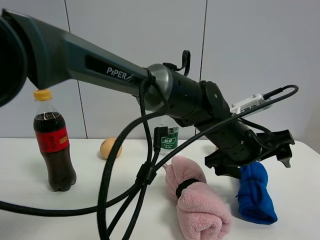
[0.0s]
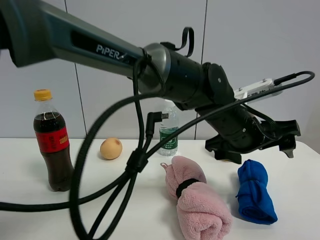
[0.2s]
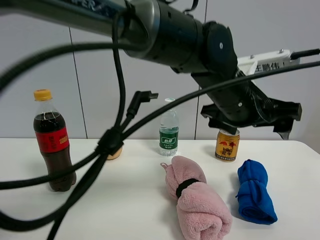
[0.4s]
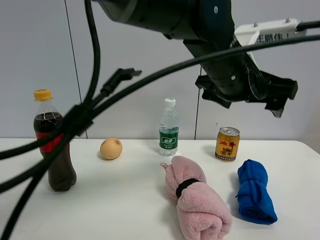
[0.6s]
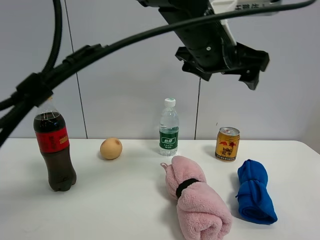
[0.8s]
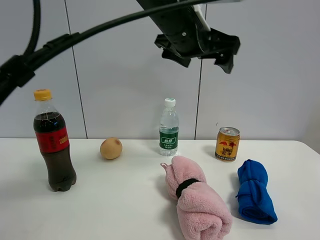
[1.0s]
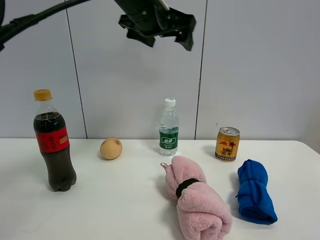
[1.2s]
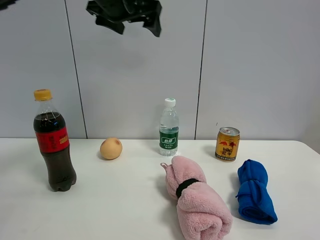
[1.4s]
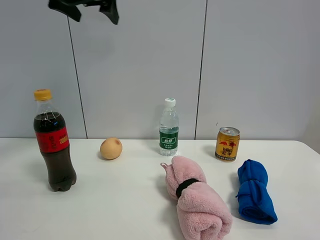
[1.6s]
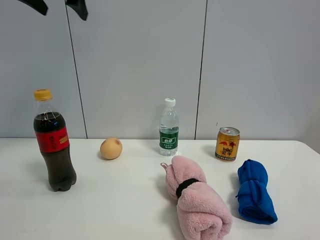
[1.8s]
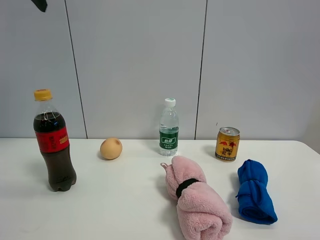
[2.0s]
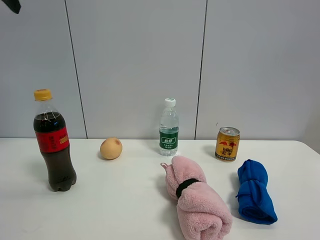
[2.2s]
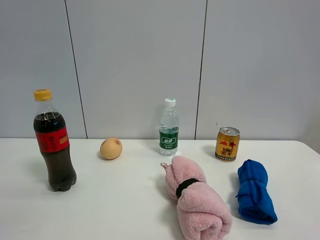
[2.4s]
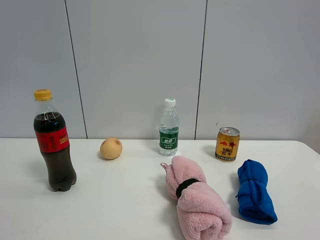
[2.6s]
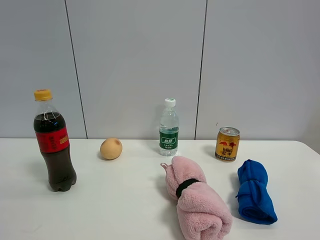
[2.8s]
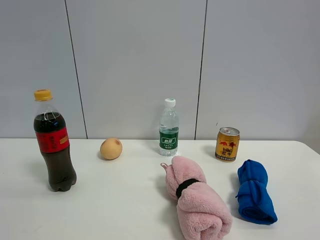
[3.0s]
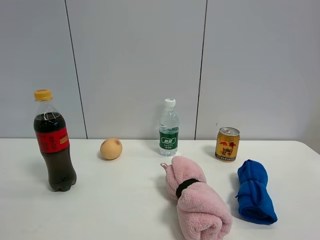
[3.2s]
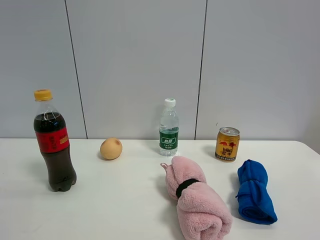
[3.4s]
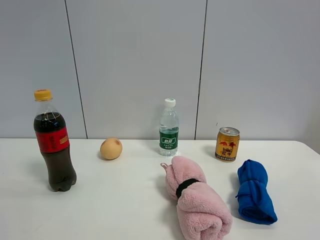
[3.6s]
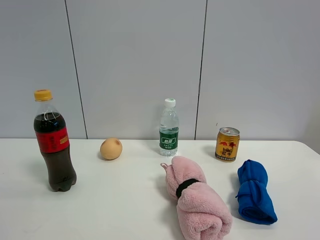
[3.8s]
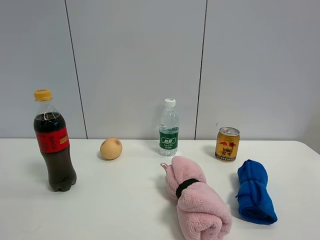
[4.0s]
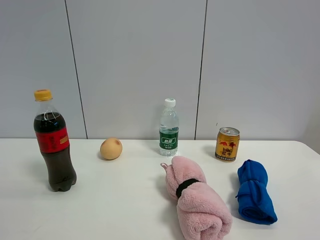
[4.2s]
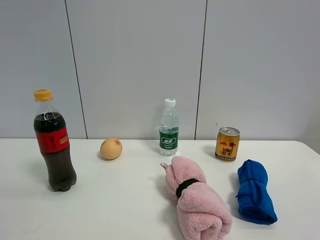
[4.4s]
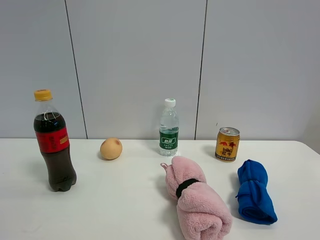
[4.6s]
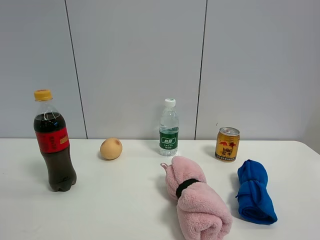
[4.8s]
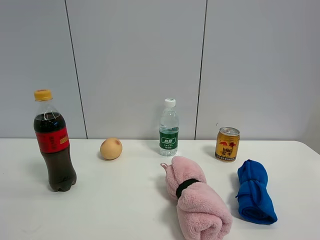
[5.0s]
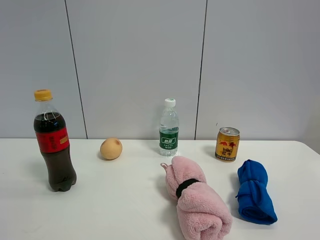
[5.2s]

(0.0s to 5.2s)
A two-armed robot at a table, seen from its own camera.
Task of the whole recording: the gripper move the object.
0.0s - 1.8s: The left gripper goes roughly 50 cm to the left and upward.
1.8s - 3.4s: The left gripper travels backward by approximately 40 cm.

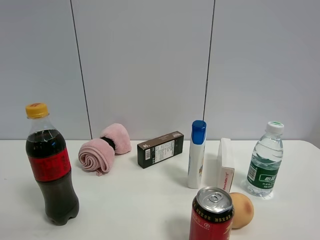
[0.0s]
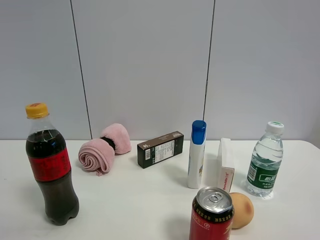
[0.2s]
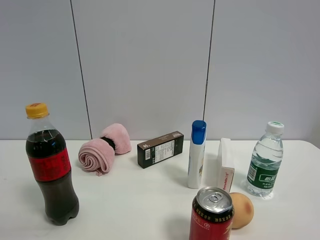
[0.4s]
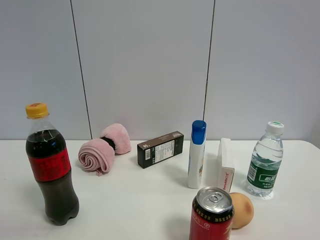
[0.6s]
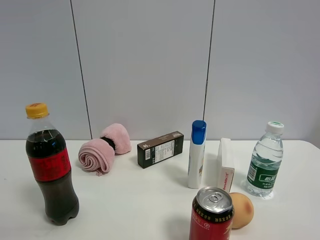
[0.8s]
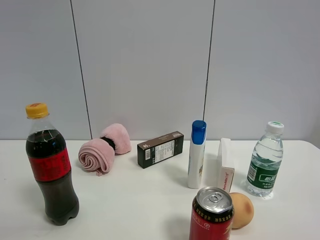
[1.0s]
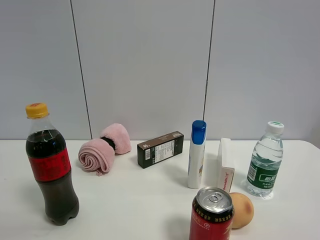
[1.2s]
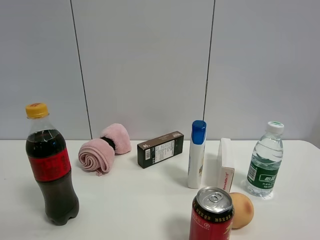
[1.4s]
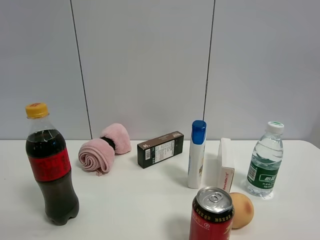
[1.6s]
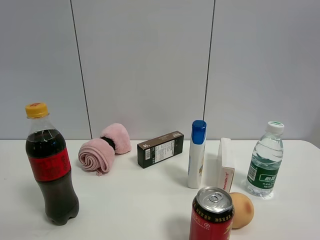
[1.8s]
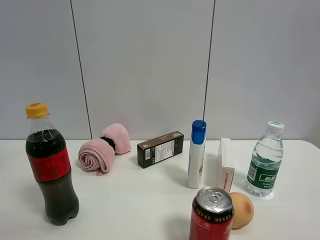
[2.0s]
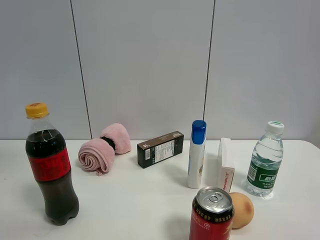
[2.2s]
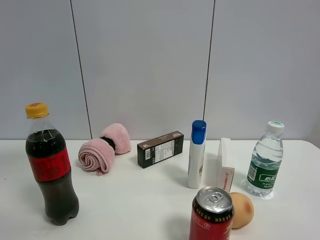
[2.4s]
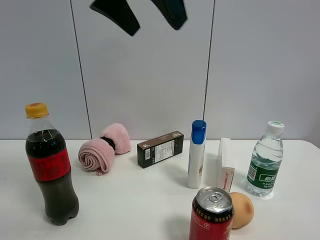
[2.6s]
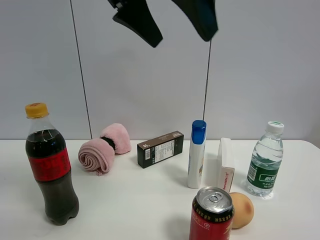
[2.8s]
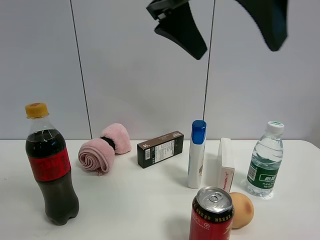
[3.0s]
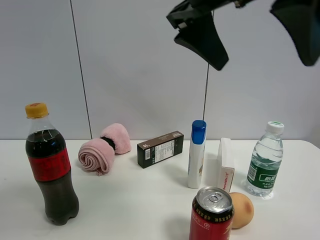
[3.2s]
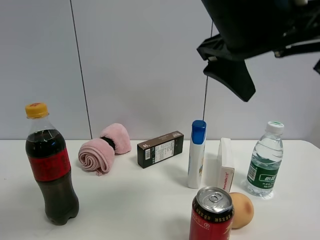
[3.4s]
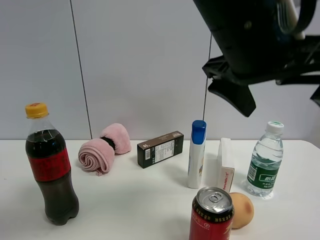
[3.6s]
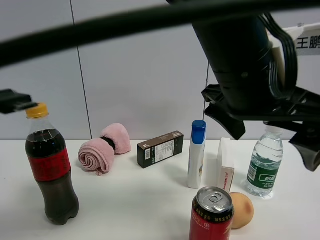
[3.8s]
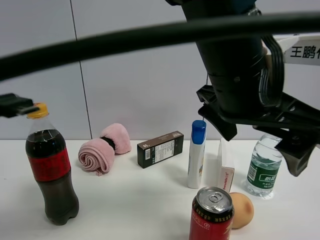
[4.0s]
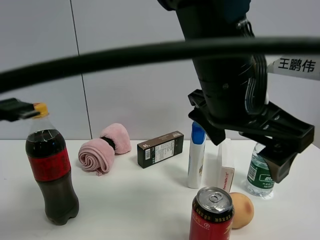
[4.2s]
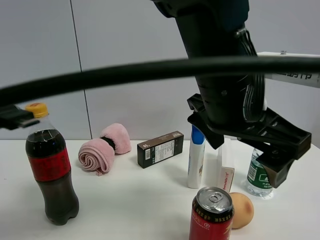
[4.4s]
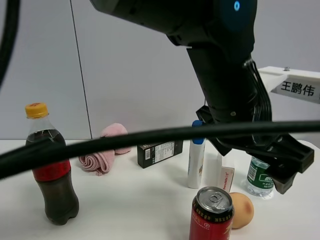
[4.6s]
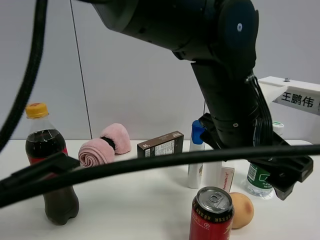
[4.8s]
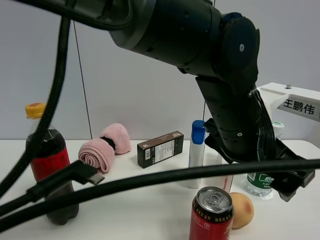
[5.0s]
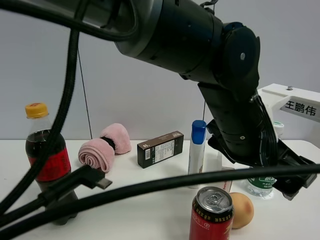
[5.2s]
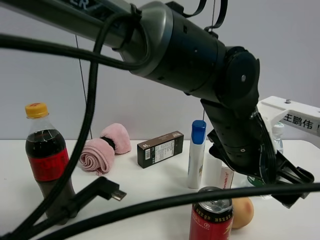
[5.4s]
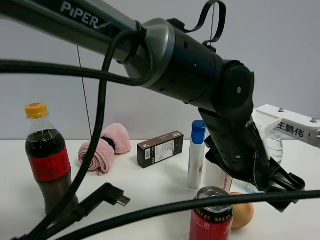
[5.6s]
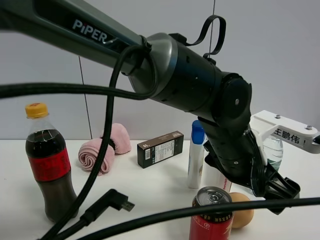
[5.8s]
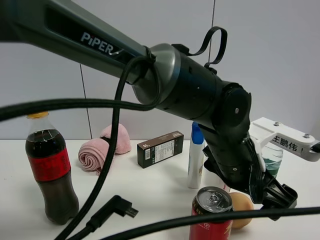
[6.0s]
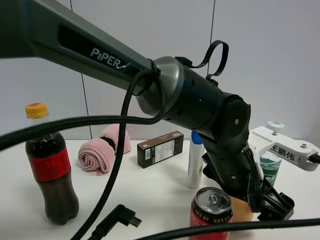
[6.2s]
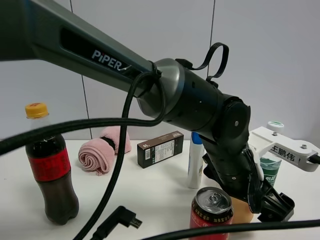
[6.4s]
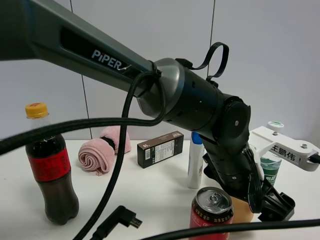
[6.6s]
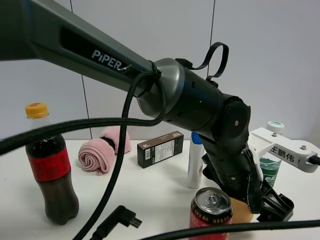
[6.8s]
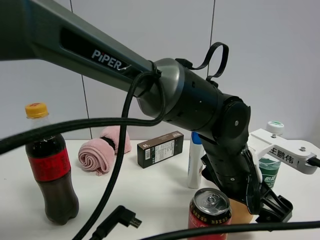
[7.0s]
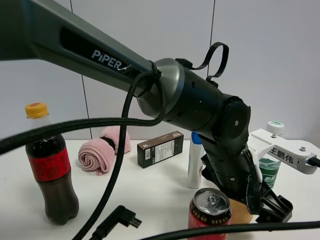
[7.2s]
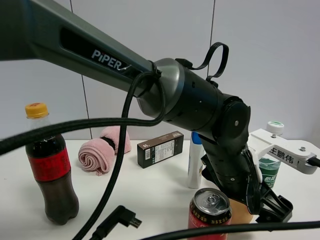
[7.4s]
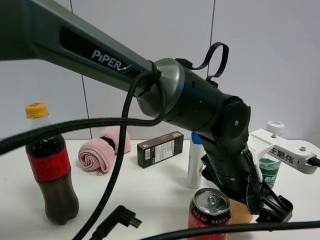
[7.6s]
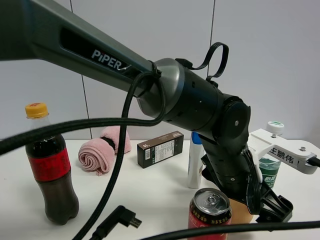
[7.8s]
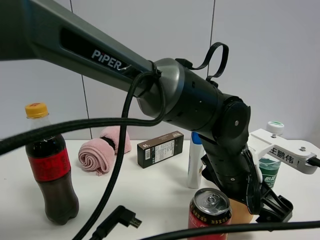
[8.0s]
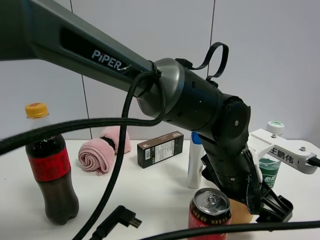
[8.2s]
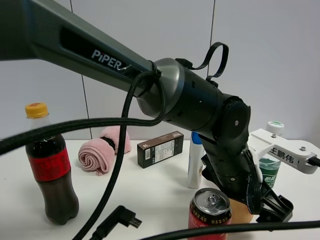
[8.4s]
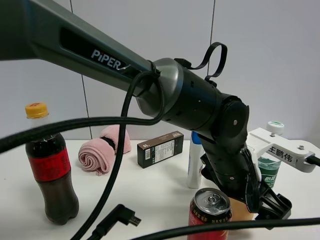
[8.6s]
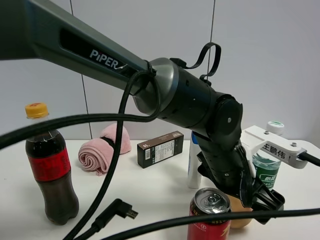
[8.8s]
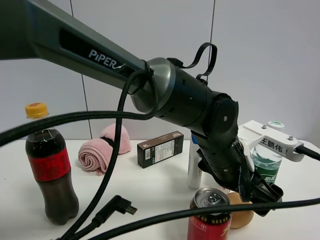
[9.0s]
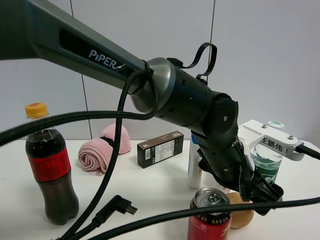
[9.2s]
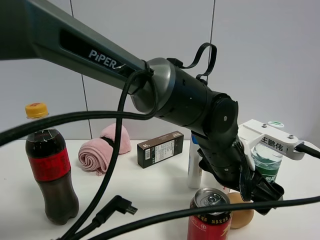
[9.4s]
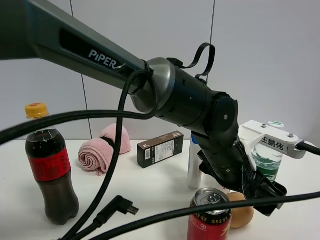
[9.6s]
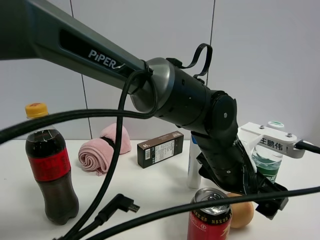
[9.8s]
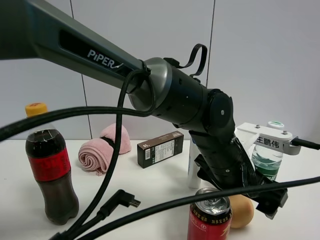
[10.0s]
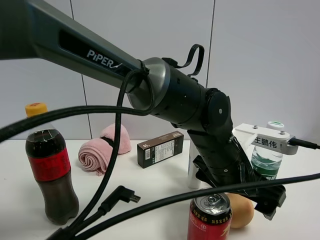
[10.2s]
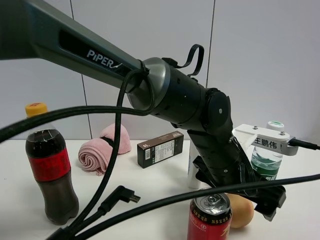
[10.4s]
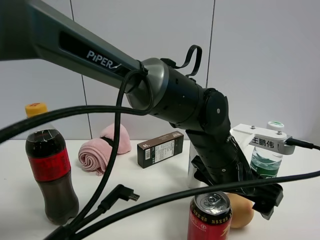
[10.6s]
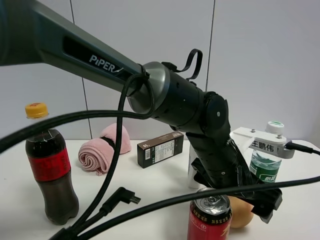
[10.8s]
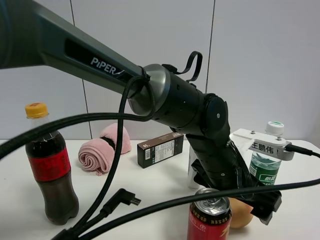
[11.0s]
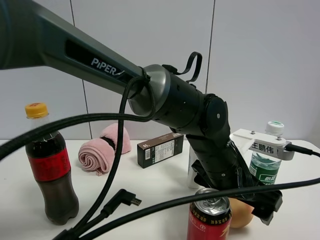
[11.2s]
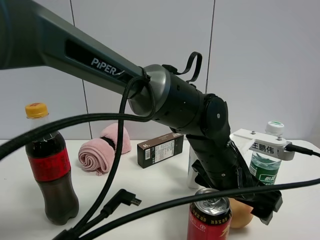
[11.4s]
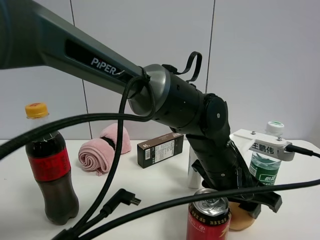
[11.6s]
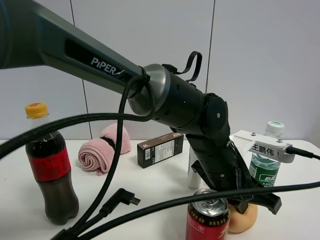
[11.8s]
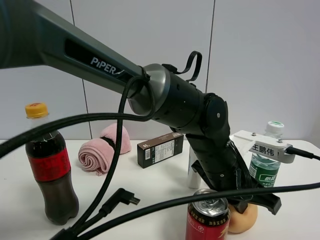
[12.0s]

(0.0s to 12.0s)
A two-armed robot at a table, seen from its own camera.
Task of the whole recording: the gripper move the object.
Step, 0.0s - 11.8s: Grasp the egg yolk pastry with the left gripper.
1.6s - 3.0s: The left gripper travels to the right by some 35 cm.
3.0s - 4.4s: The left gripper travels downward and to the right by roughly 15 cm.
4.4s - 6.0s: The left gripper heads downward, covering some 10 cm.
9.0s - 10.4s: The grippers move only a little.
10.4s - 12.0s: The left gripper closes up.

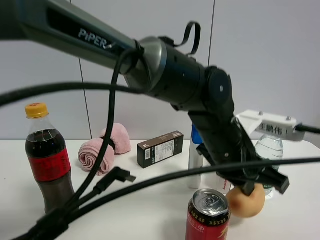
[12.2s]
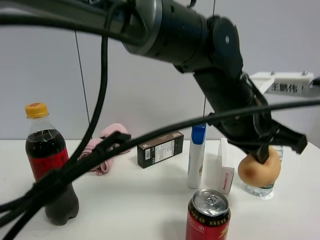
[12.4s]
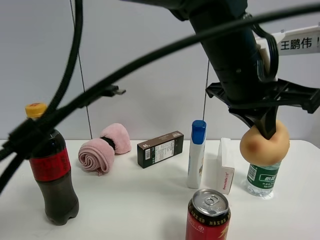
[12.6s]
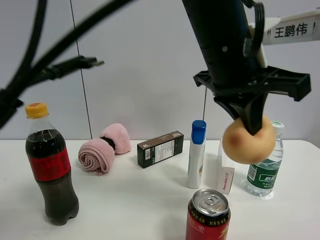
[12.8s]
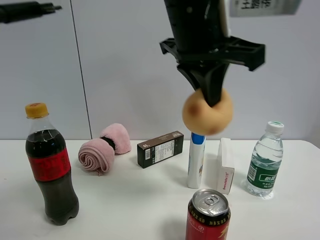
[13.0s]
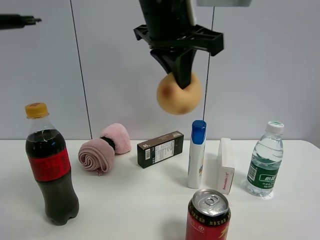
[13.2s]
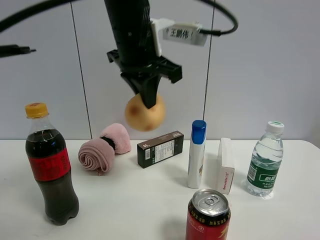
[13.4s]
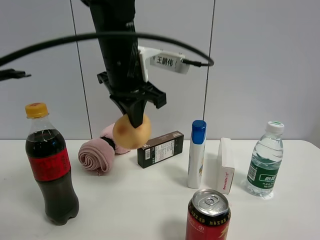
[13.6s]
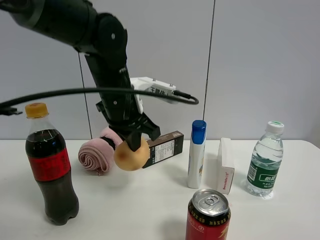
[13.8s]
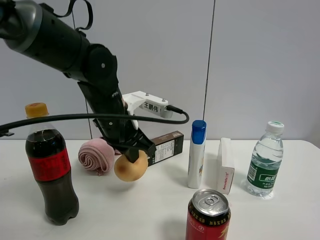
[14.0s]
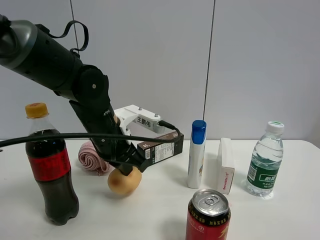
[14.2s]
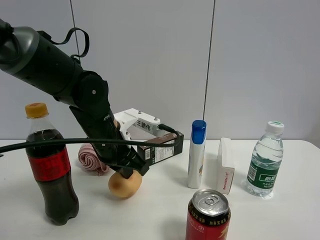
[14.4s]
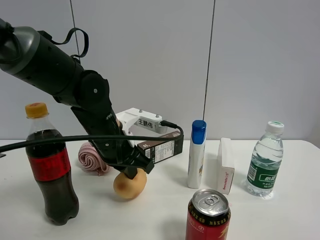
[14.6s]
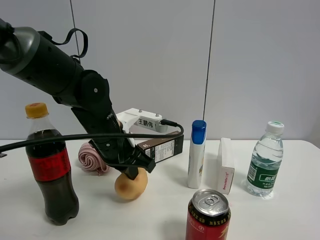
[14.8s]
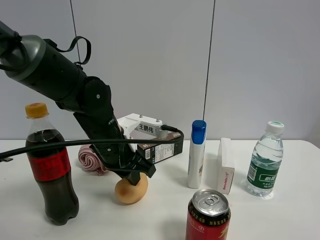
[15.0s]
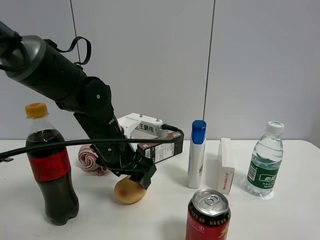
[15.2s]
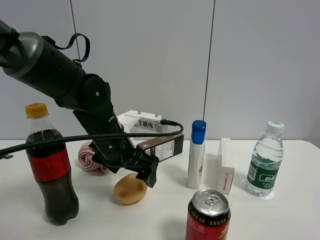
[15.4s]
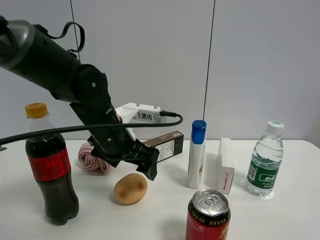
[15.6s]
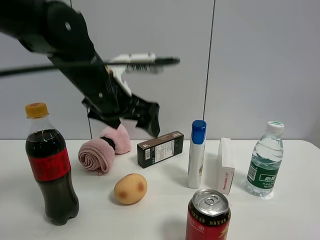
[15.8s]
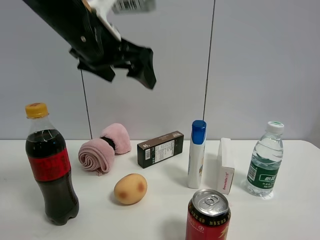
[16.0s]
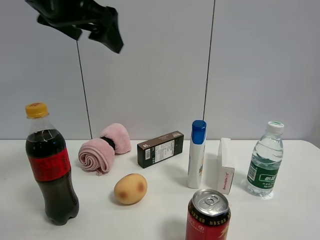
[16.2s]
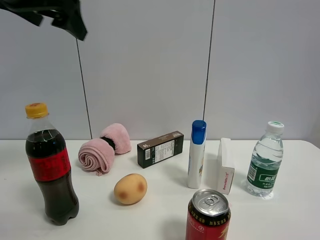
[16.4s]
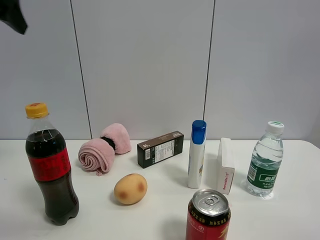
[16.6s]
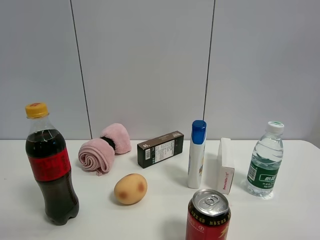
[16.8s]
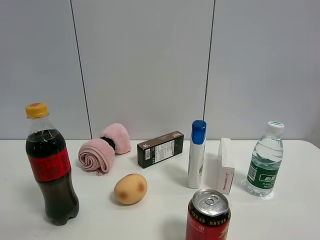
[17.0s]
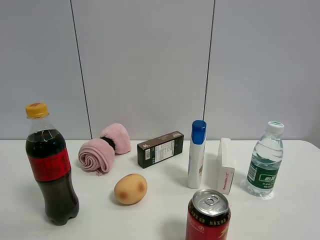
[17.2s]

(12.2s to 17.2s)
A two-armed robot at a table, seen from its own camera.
Task of the whole recording: the gripper move the object.
Step, 12.2s - 15.6s: Place the egg yolk pastry on the table with the left gripper.
12.2s - 13.8s: The left gripper travels to the left by roughly 20 cm.
13.8s - 15.6s: The left gripper changes place by some 5 cm, and opens.
15.6s - 17.2s: The left gripper heads to the left, upward and backward, covering roughly 40 cm.
